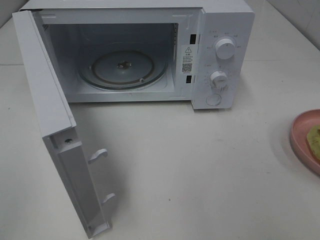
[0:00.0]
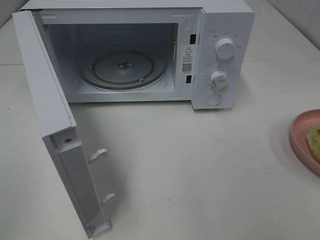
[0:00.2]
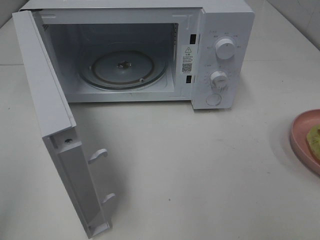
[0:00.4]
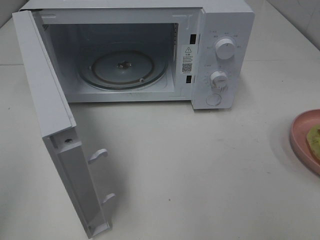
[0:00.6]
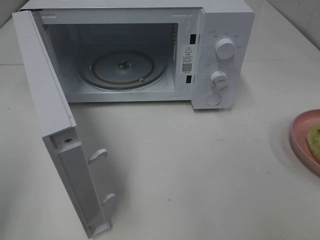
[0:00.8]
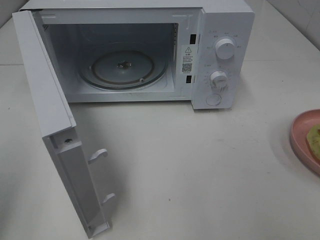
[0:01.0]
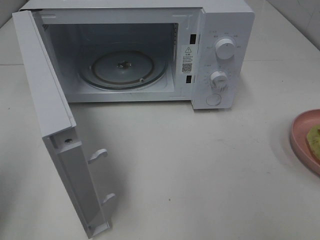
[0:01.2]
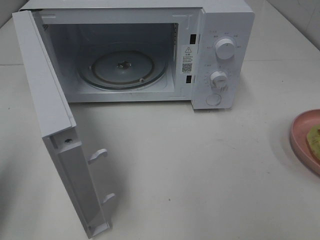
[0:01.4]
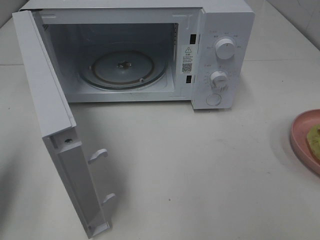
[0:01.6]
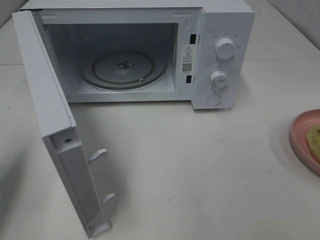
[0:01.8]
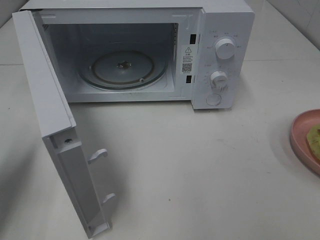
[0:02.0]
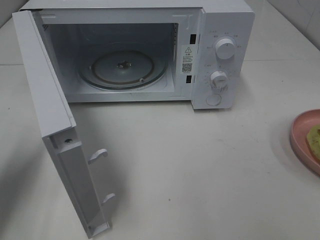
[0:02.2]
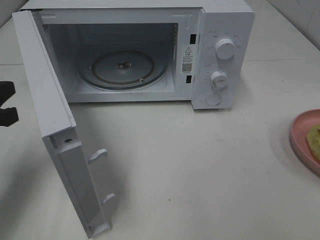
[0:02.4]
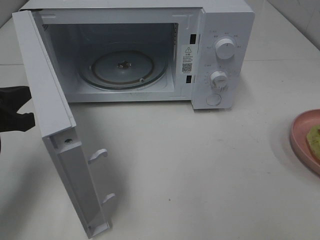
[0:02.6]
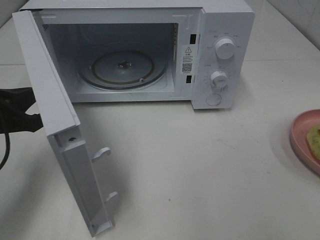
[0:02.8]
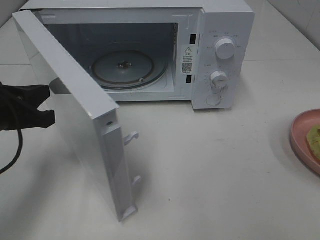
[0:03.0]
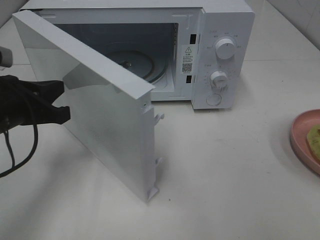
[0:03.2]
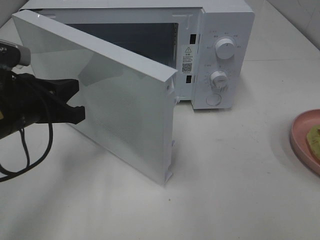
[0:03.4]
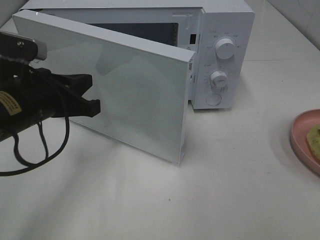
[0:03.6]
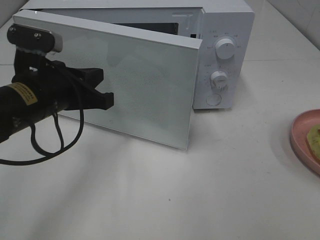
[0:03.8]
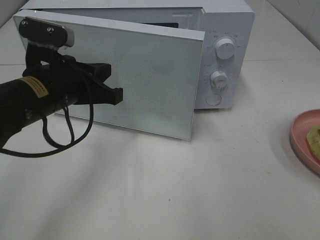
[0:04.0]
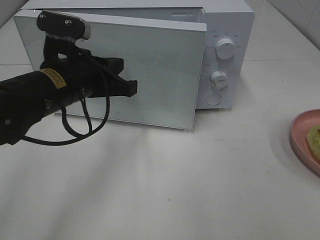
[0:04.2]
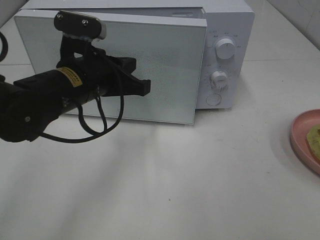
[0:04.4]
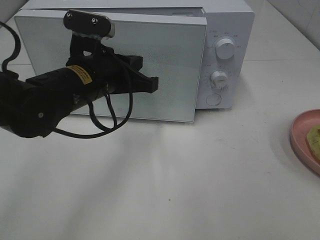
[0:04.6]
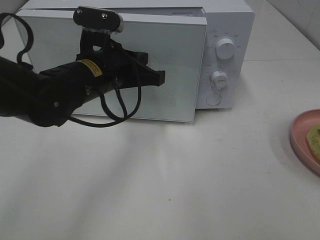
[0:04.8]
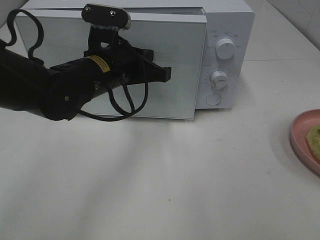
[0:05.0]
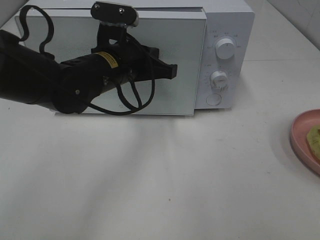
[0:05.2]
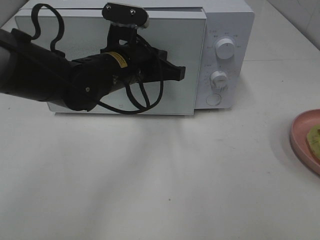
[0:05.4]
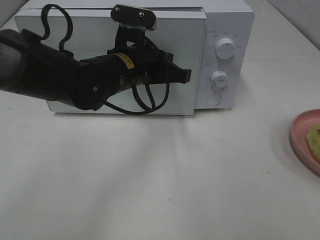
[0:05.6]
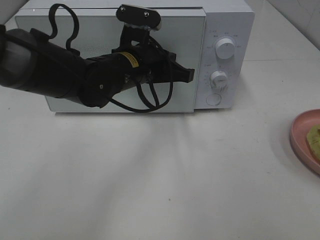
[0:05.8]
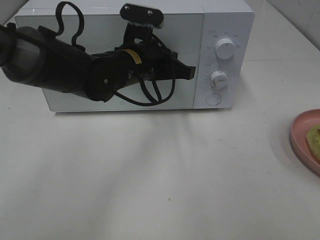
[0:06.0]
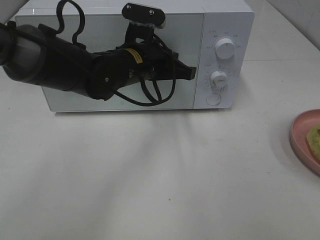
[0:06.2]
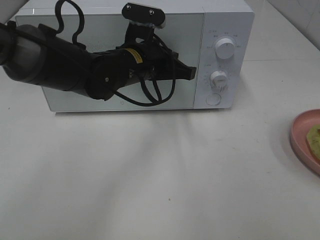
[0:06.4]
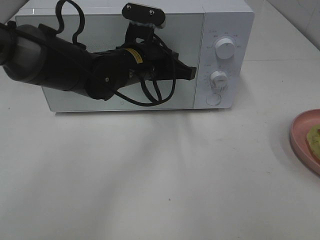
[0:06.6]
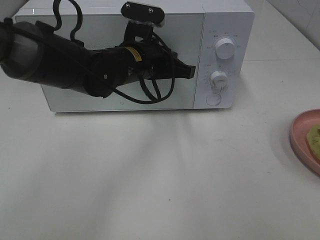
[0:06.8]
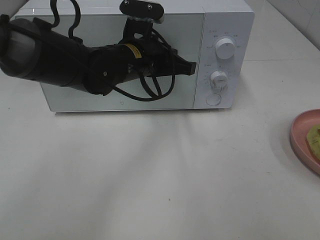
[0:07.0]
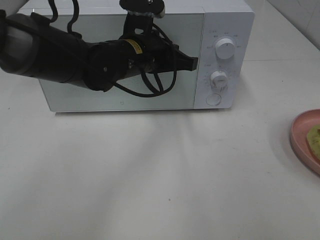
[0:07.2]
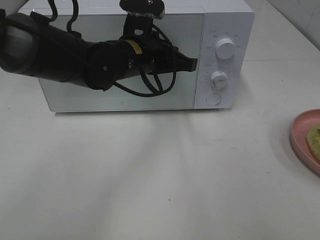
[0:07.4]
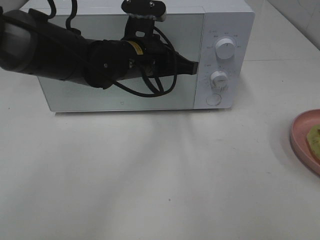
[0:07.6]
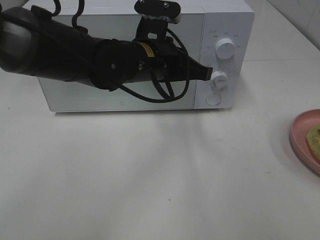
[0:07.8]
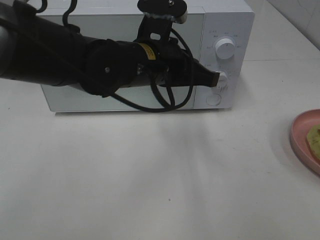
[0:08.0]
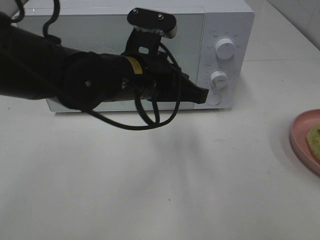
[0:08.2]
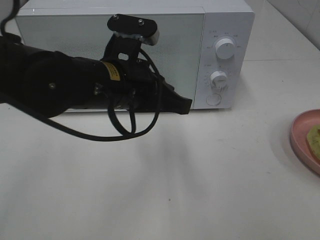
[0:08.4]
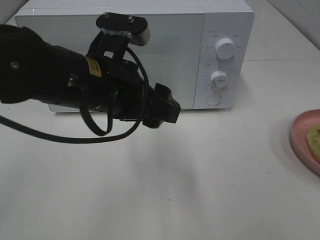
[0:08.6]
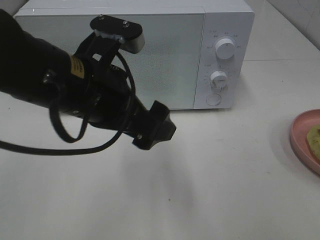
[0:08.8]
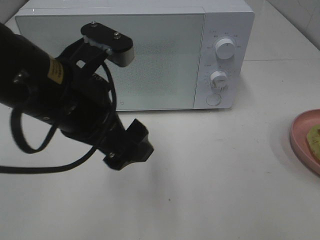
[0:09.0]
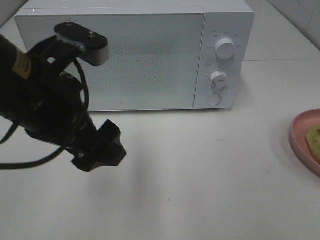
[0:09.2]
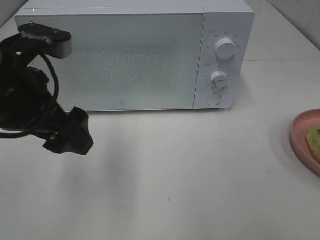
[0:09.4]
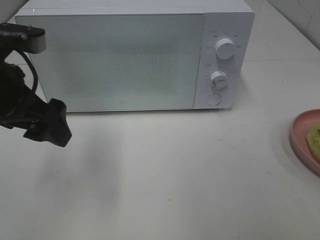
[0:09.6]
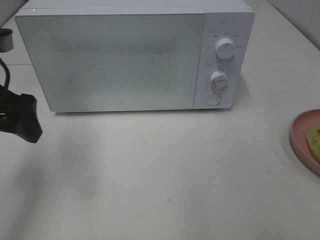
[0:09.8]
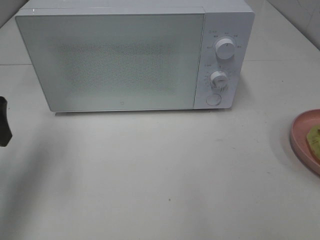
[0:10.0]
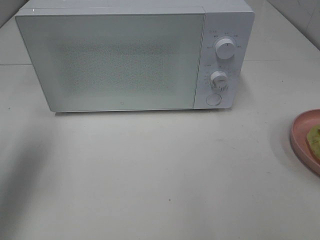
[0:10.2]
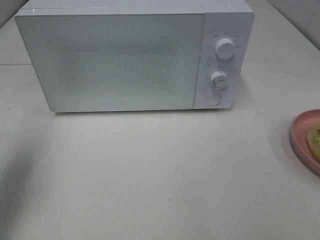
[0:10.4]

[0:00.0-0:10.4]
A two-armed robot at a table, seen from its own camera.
Task of the whole recording: Heat Sandwich.
Step, 0:00.0 to 0:07.0: Left hand: close the microwave door.
0:00.0 to 0:01.4: The left gripper moves forward, about 15 cm, and closes its fingers.
0:01.4 to 0:03.0: The left gripper heads forward, to the right and downward, covering approximately 15 cm.
0:03.0 to 0:04.4: The left gripper moves to the right, roughly 15 cm.
0:04.4 to 0:06.0: The left gripper heads to the right and forward, covering roughly 10 cm.
0:06.0 to 0:07.4: There are only small adjustments of the grippers.
0:07.4 to 0:09.0: The left gripper moves backward and to the left, approximately 15 cm, and opens.
0:09.0 to 0:10.4: The left gripper shifts some 20 cm to the left.

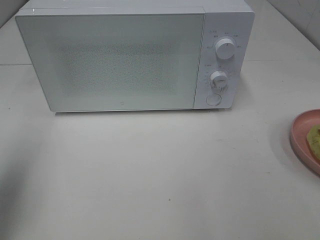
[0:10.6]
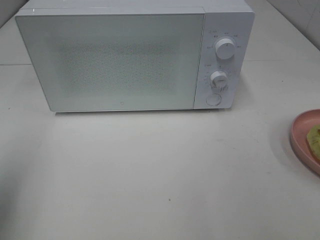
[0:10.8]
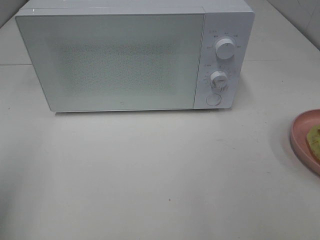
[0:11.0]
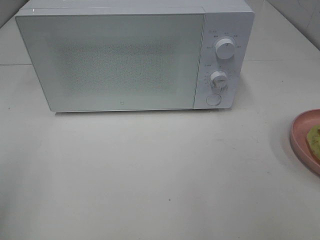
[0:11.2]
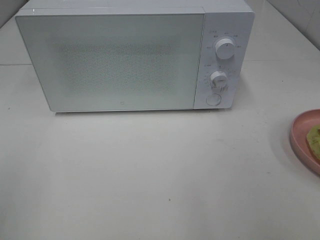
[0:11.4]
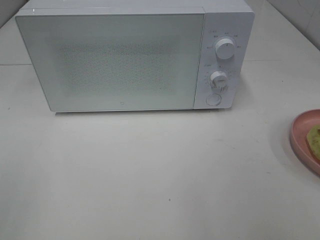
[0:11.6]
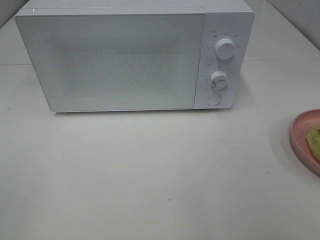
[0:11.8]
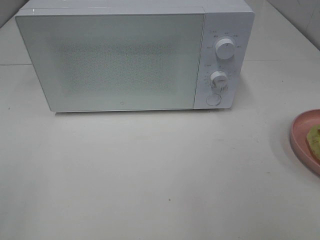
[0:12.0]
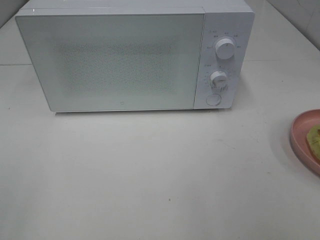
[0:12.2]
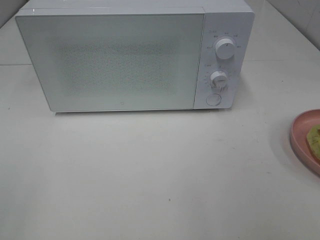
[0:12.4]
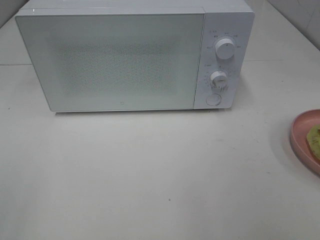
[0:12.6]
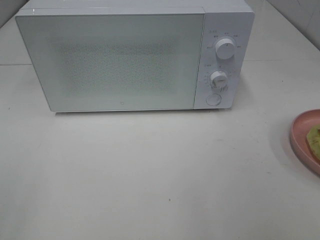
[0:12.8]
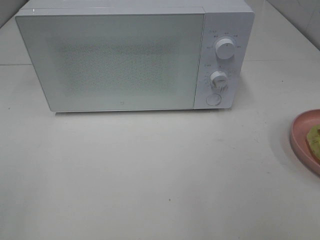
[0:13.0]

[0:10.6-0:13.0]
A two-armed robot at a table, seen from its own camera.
Task of the whole recording: Heat Sandwich.
0:10.6 to 0:11.8: The left gripper travels backward by roughly 20 cm.
0:11.8 to 0:13.0: Both grippers stay put.
